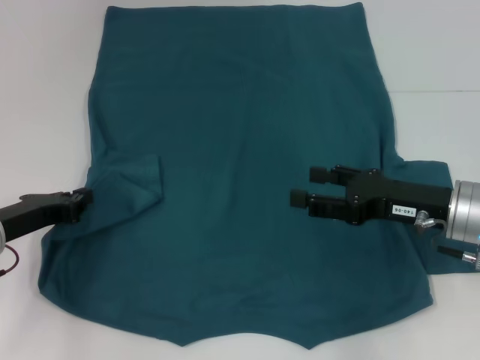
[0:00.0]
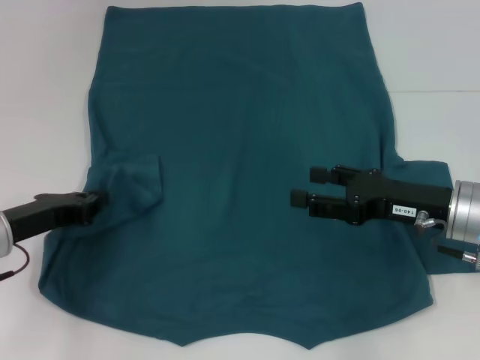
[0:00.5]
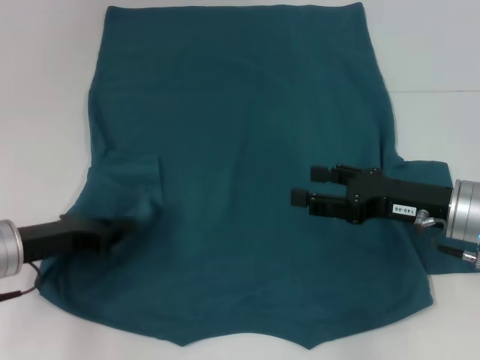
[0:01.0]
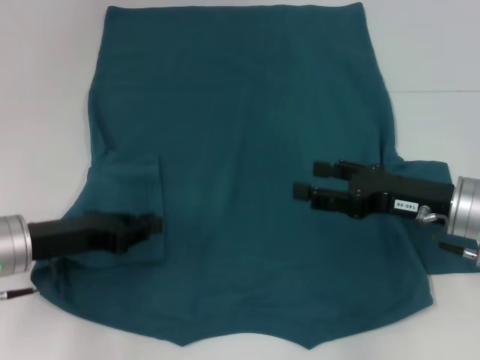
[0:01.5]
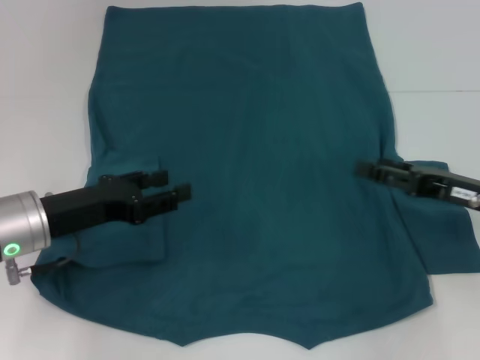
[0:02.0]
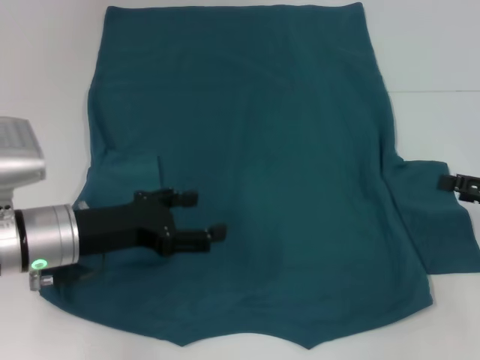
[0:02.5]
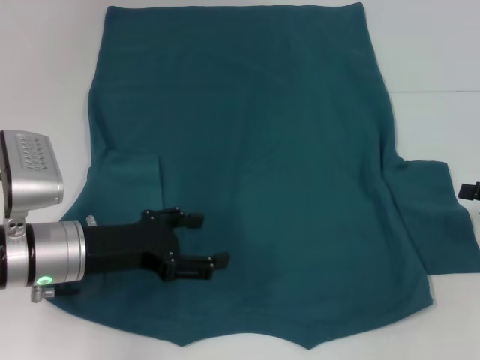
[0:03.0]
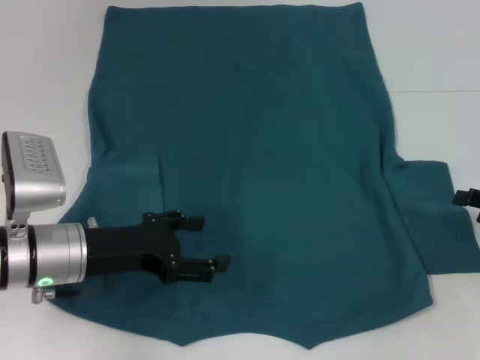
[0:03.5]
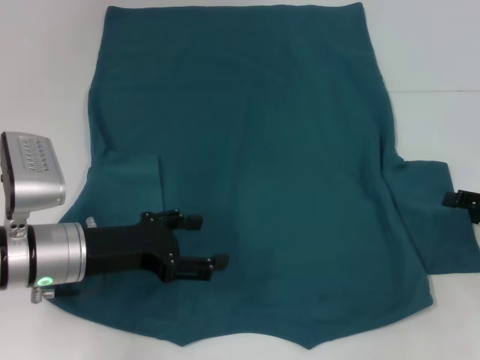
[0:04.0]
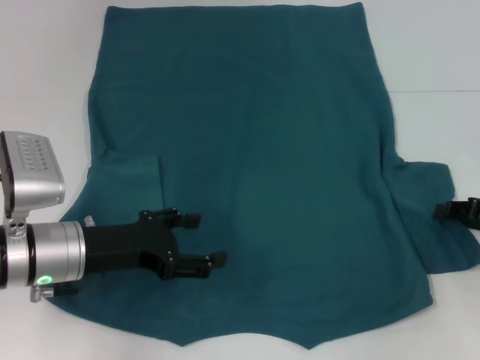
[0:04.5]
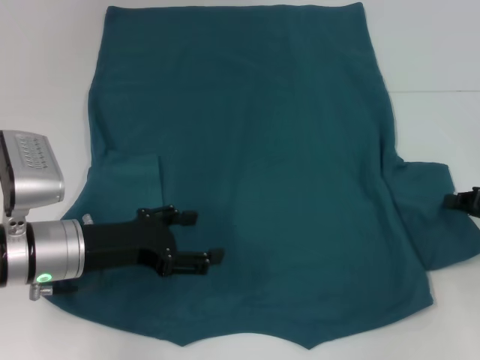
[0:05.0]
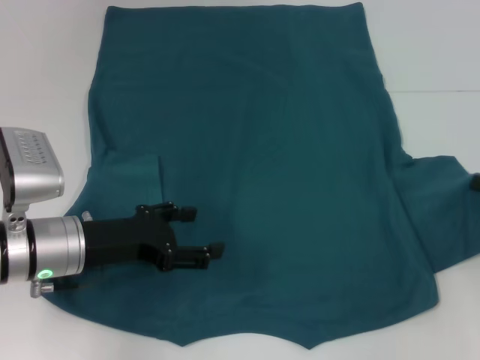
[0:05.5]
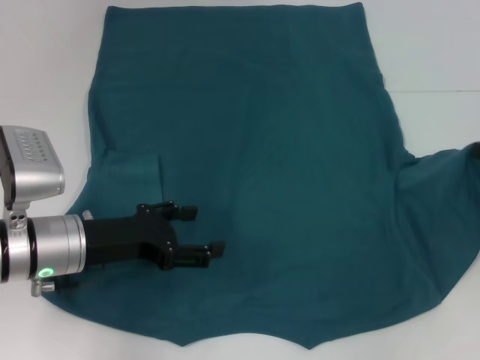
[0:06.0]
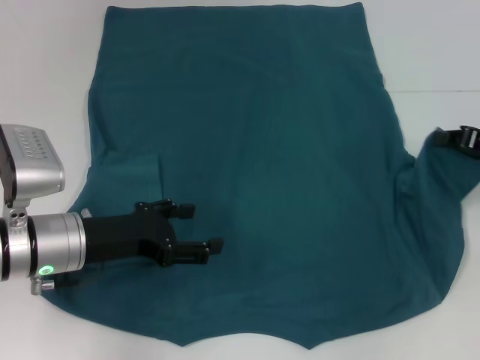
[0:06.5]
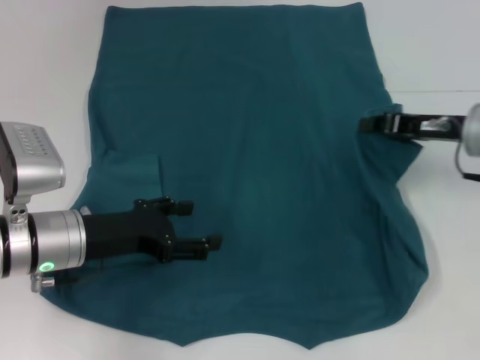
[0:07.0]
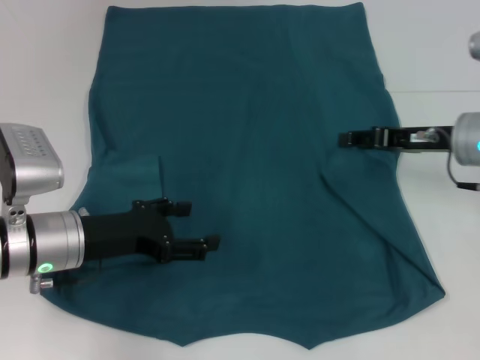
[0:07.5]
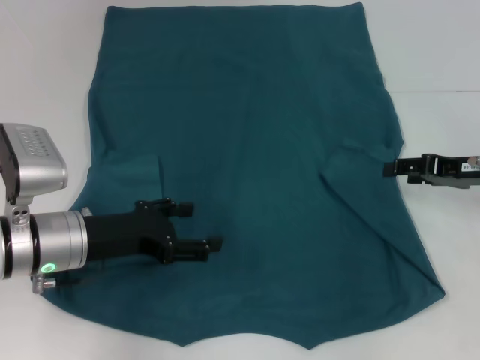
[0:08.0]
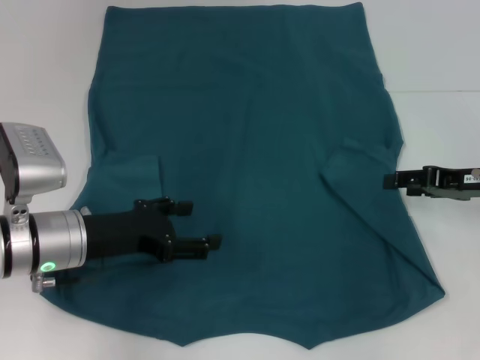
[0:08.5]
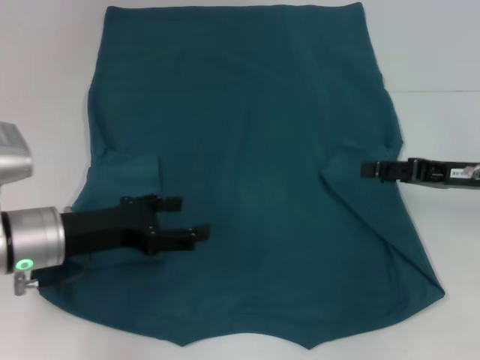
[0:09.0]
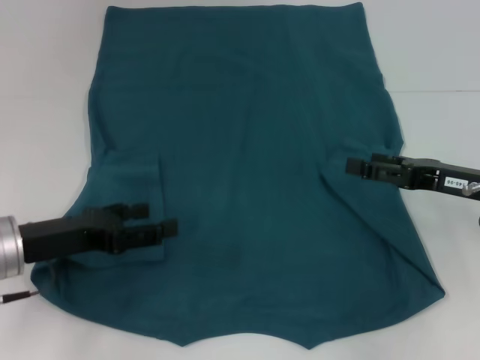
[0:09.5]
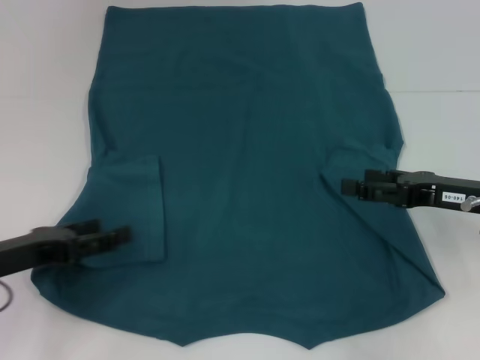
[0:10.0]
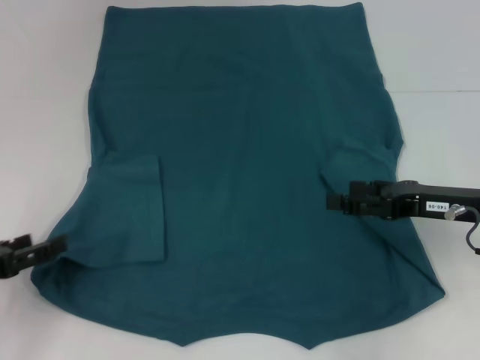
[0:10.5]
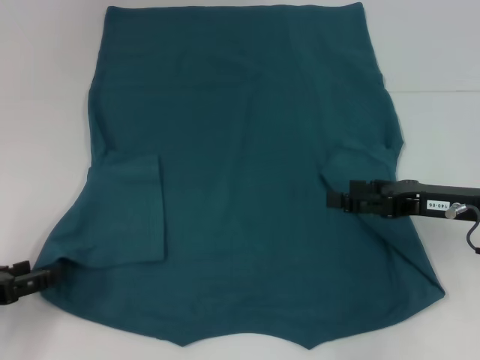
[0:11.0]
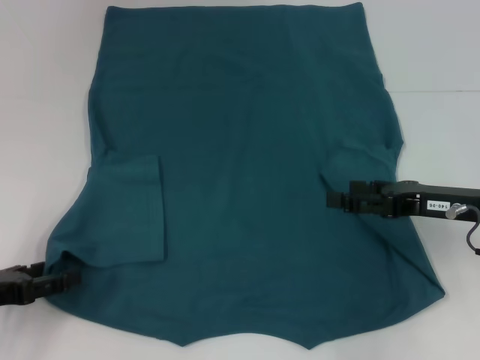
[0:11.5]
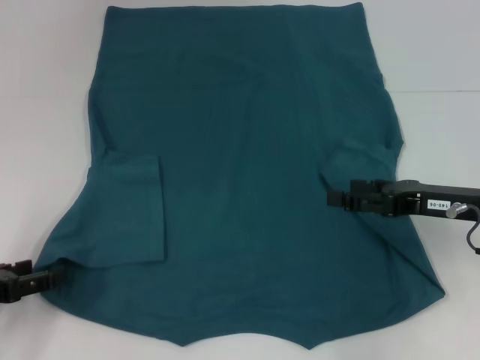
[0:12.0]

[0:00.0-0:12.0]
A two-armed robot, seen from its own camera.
Step, 0:01.5 to 0:07.5: Fold the bottom right sleeve to the right.
0:00.0 to 0:02.0: Both grippers move to the right, approximately 5 cm. The left gripper opens.
0:02.0 to 0:04.0: The right gripper heads to the right, covering about 10 cm. Meanwhile the left gripper opens its fingers.
0:04.0 to 0:06.0: The right gripper ends up approximately 5 cm from where it was, and closes up.
0:06.0 to 0:08.0: The right gripper travels to the left by about 5 cm, and opens its fingers.
0:08.0 to 0:10.0: The right gripper changes place by roughly 5 cm. Meanwhile the left gripper heads to the left, covering roughly 10 cm.
0:10.0 to 0:12.0: The left gripper travels to the left by some 5 cm.

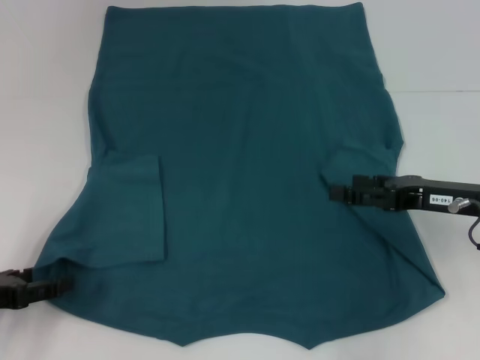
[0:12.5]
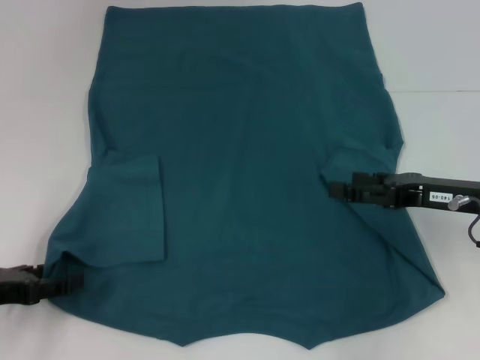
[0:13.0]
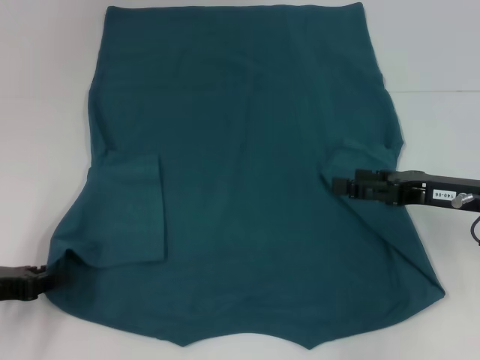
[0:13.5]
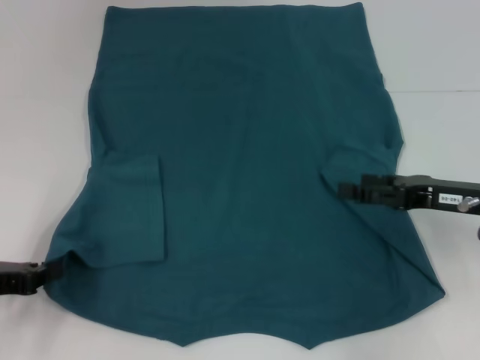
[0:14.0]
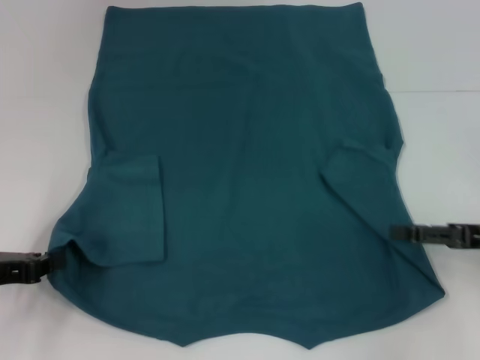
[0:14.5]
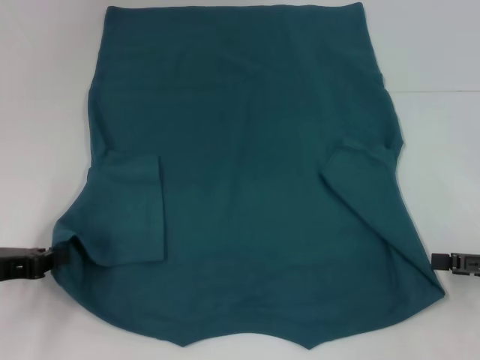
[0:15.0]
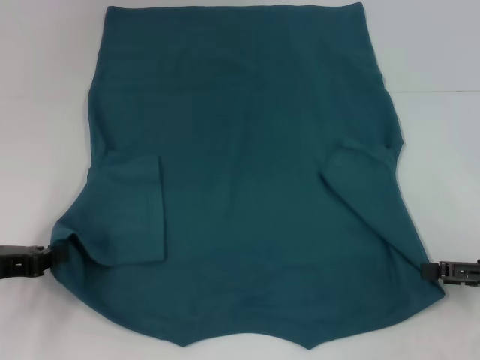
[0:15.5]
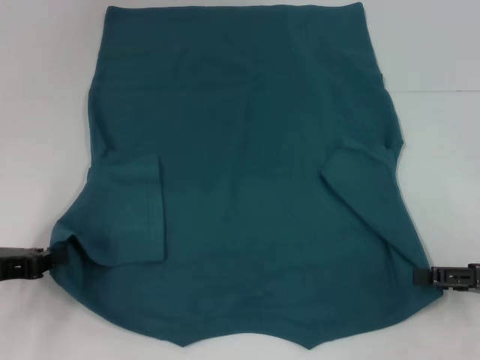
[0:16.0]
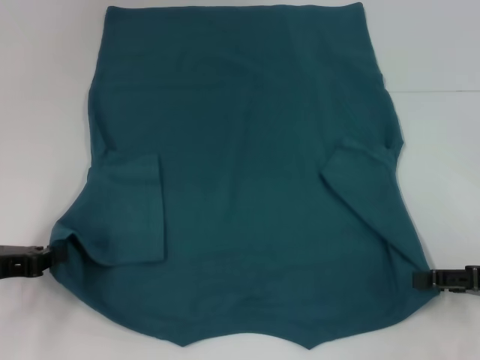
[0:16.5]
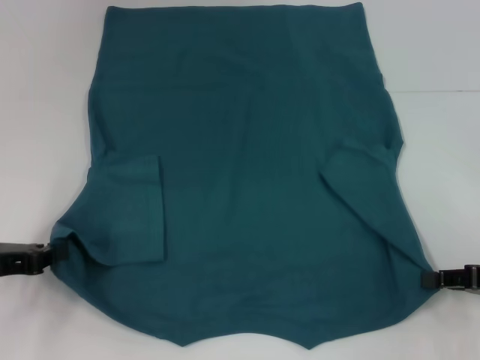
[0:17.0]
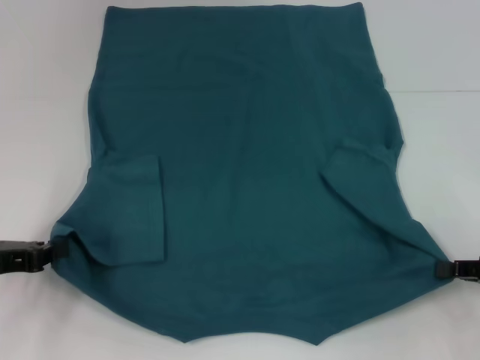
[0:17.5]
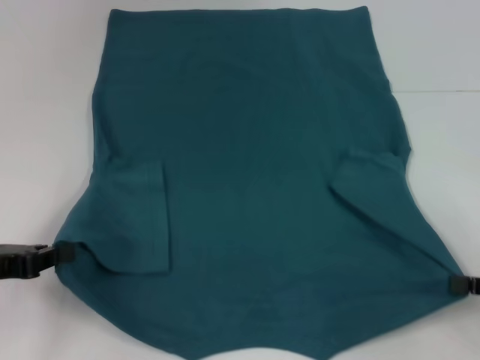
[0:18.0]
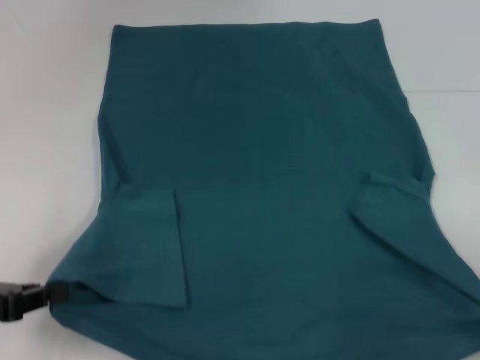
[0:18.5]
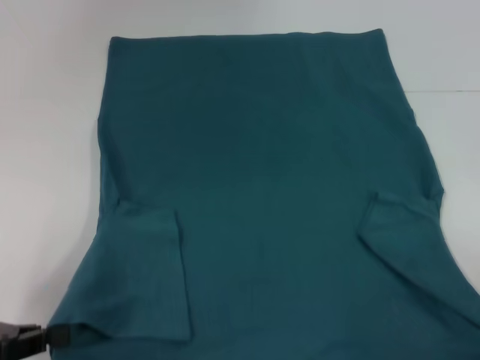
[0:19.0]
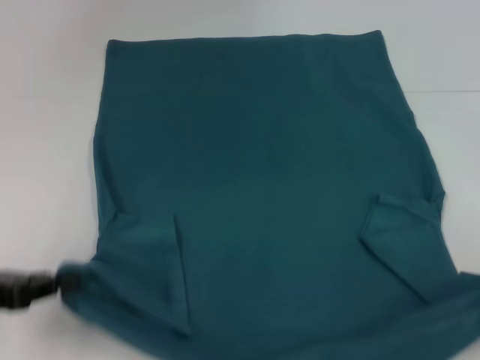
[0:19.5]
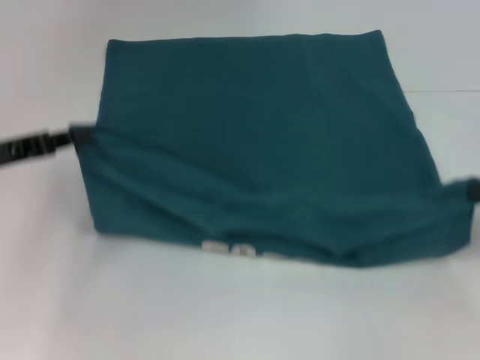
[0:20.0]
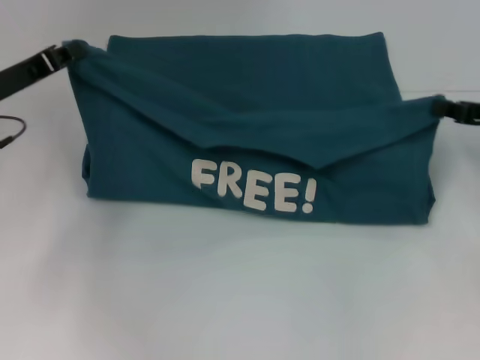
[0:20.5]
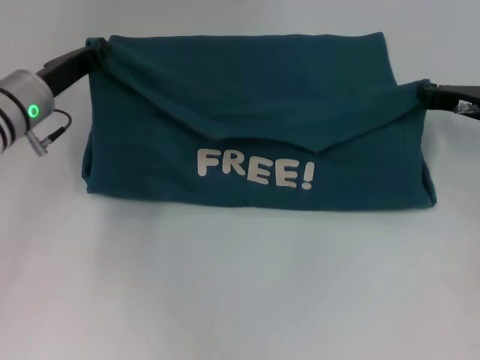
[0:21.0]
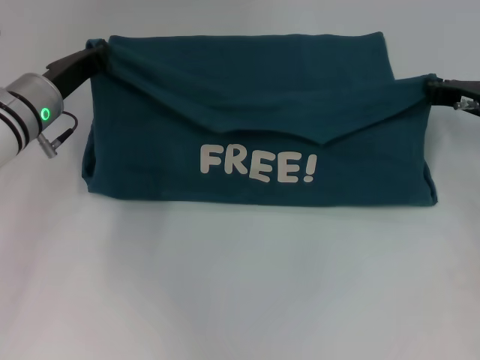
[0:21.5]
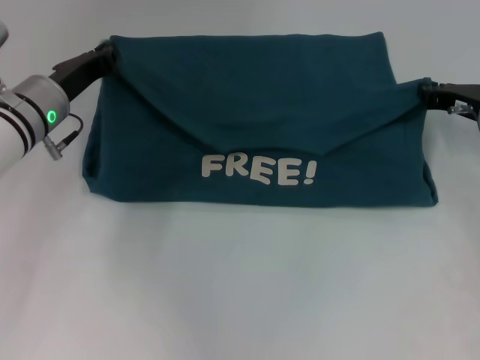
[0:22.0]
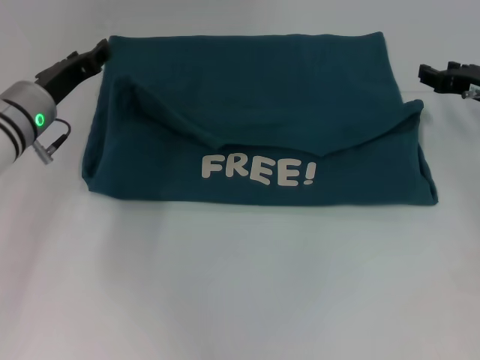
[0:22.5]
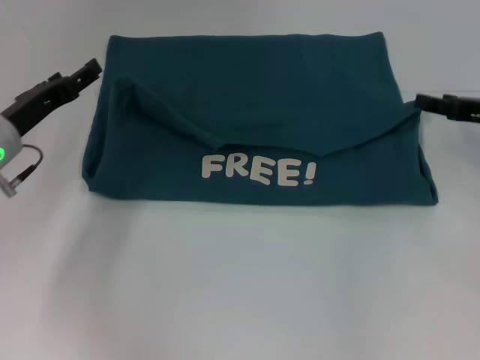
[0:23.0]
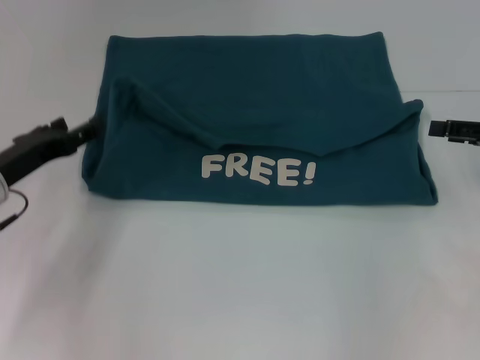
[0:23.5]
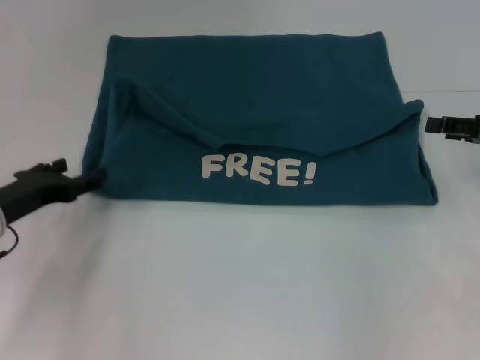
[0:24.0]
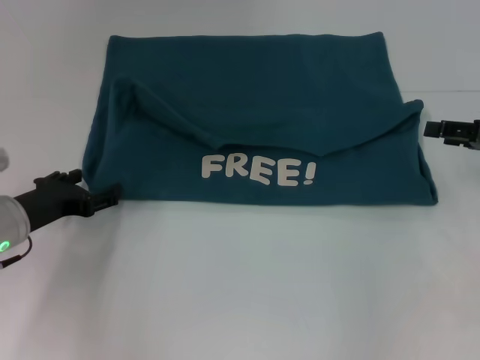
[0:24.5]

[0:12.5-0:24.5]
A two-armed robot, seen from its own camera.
Step, 0:14.0 to 0:17.0: Grab the bottom right corner with your right hand.
Step, 0:17.5 to 0:22.0: Fold the clothes to the left.
Step, 0:17.5 to 0:22.0: Fold the clothes to the right.
0:12.5 to 0:14.5: The left gripper closes. The right gripper shifts some 5 cm to the right.
0:14.5 to 0:16.5: The grippers stay close to where they were, moving slightly.
0:16.5 to 0:18.5: The left gripper ends up about 5 cm from where it was; the right gripper is displaced backward and to the right by some 10 cm, and closes.
0:18.5 to 0:20.5: Both grippers travel together forward, about 20 cm.
0:20.5 to 0:22.5: The right gripper changes place by approximately 5 cm. Meanwhile the left gripper is displaced to the right by roughly 5 cm, and opens up.
0:22.5 to 0:24.5: The left gripper moves backward and downward, roughly 10 cm, and opens. Meanwhile the right gripper shifts about 10 cm backward and to the right, and opens.

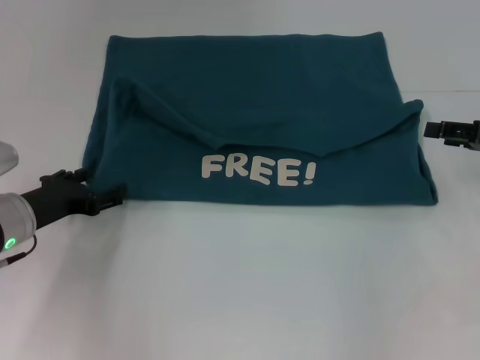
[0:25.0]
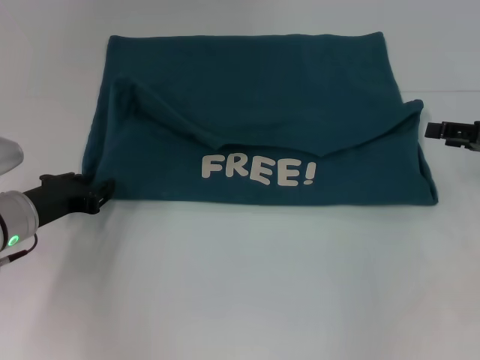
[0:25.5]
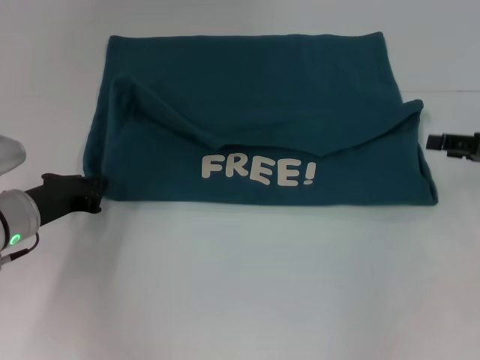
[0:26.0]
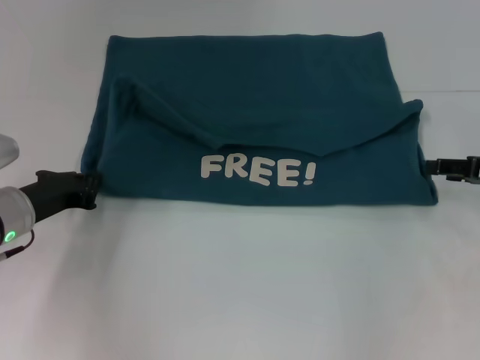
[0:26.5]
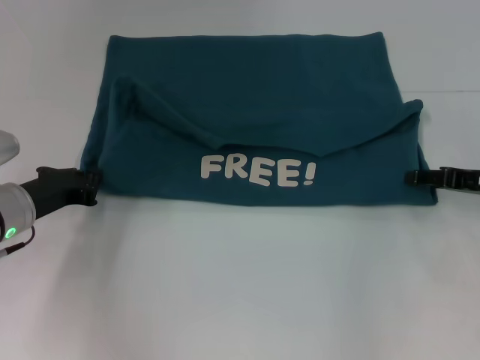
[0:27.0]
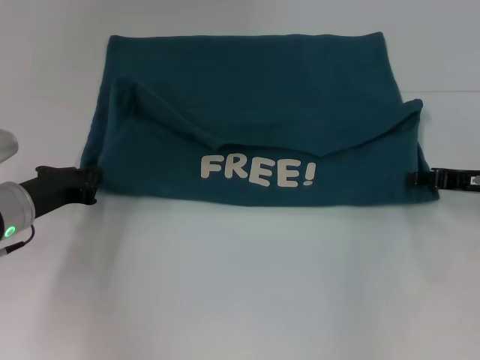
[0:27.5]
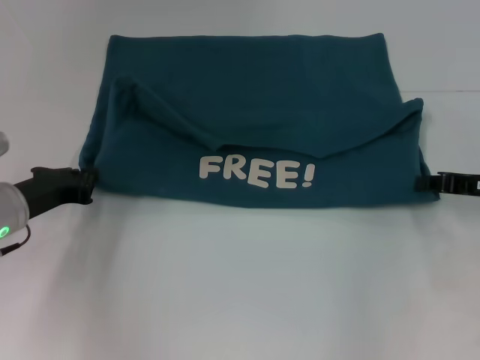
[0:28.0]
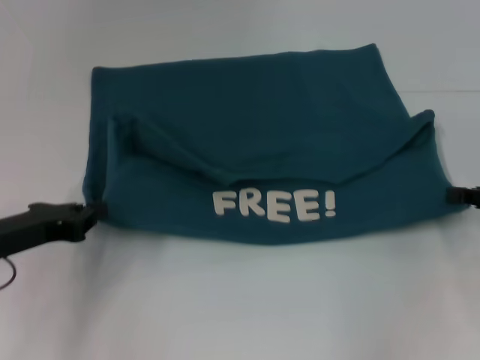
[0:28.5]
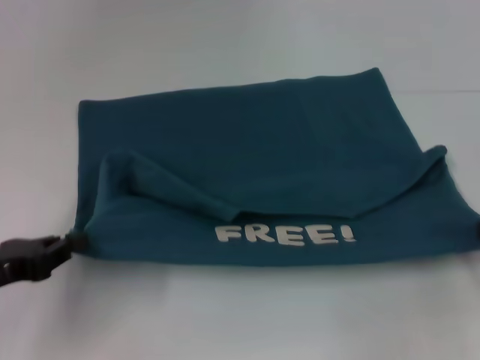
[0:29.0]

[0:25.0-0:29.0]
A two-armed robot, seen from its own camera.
0:25.0 to 0:27.0: The left gripper closes.
0:27.0 to 0:29.0: The right gripper travels backward and to the right by roughly 10 cm, and closes its fingers; the left gripper heads backward, covering roughly 10 cm.
